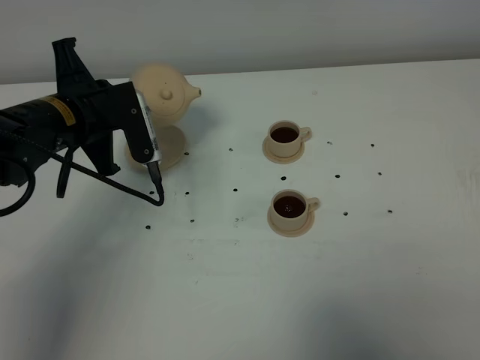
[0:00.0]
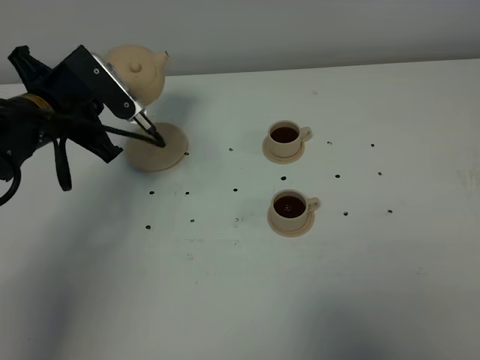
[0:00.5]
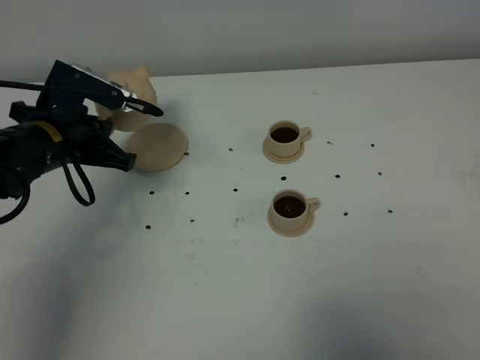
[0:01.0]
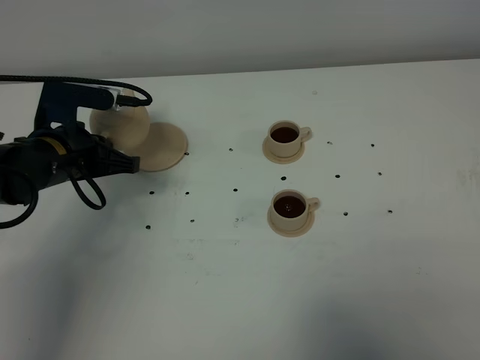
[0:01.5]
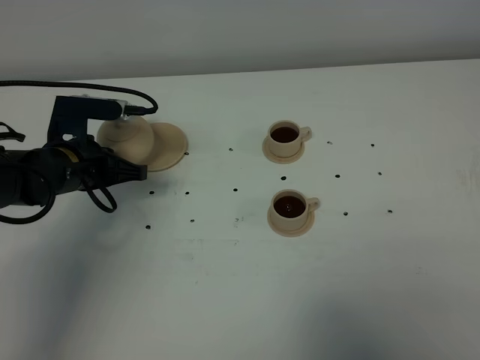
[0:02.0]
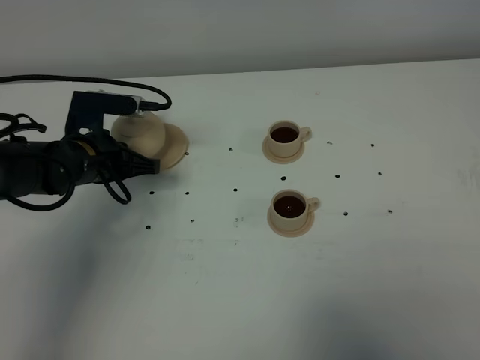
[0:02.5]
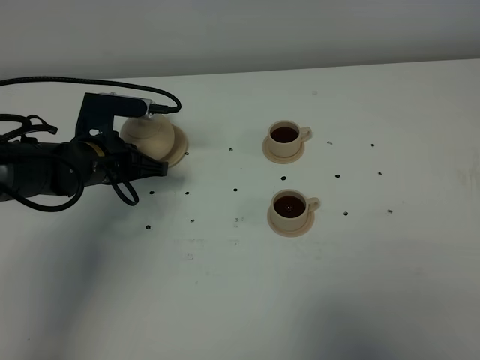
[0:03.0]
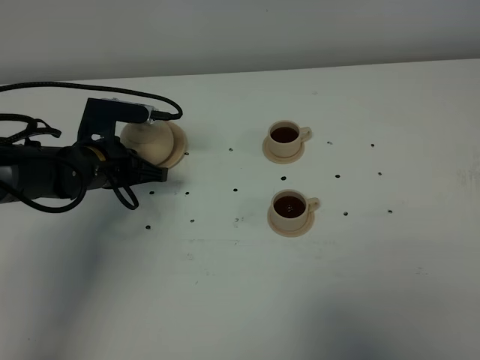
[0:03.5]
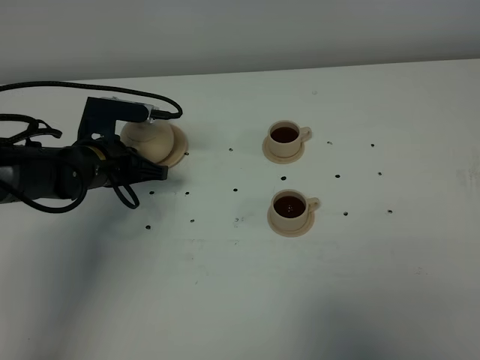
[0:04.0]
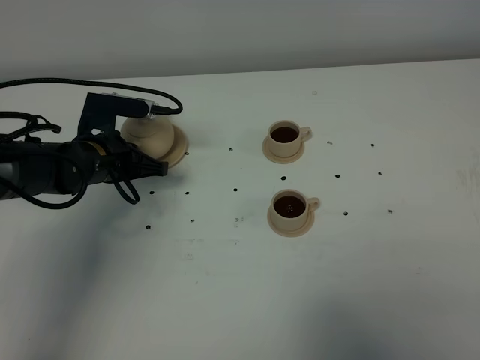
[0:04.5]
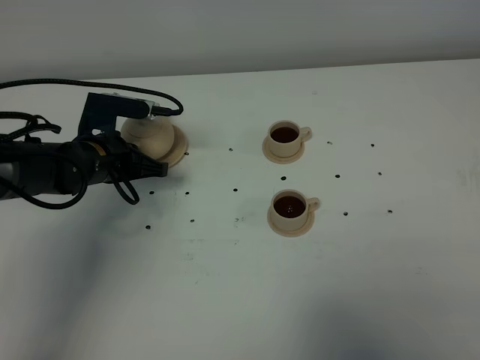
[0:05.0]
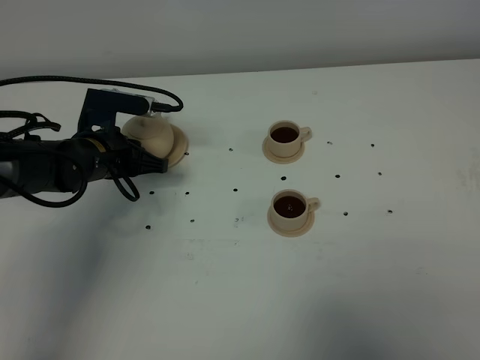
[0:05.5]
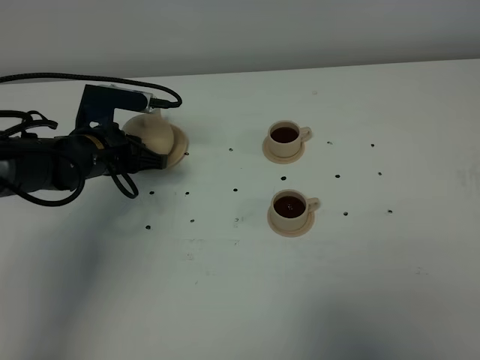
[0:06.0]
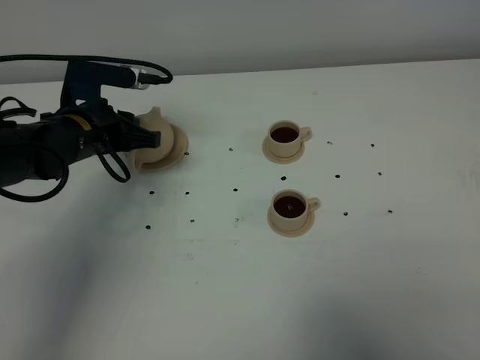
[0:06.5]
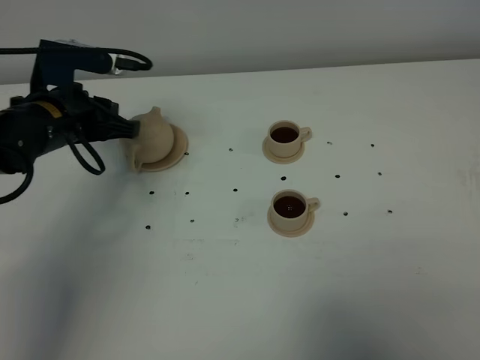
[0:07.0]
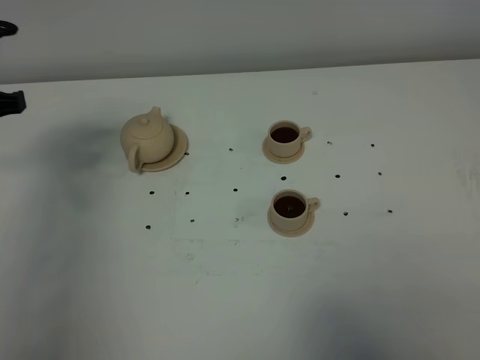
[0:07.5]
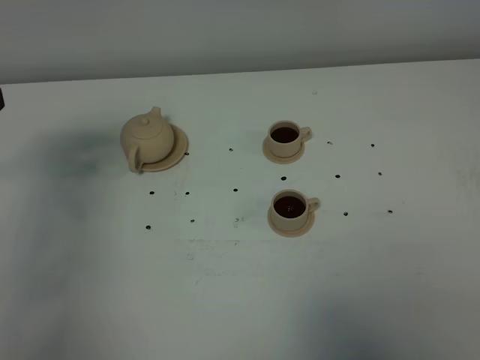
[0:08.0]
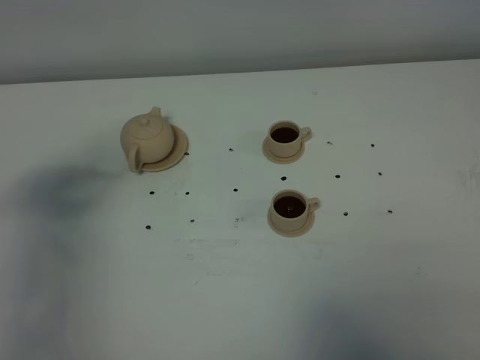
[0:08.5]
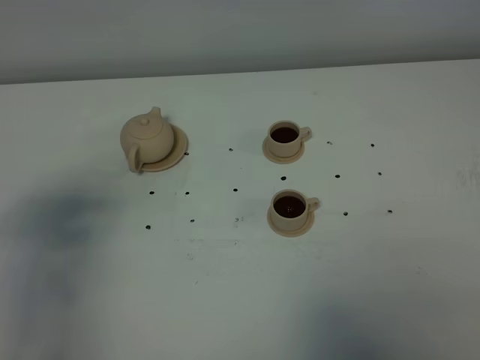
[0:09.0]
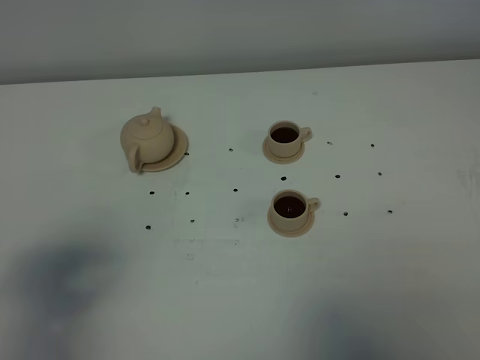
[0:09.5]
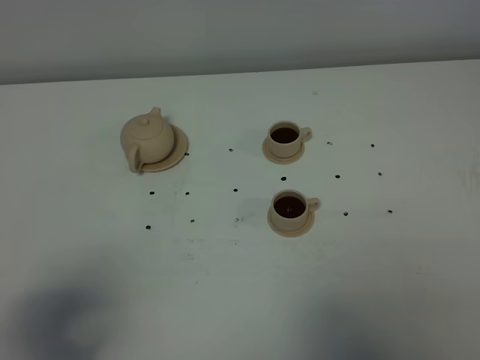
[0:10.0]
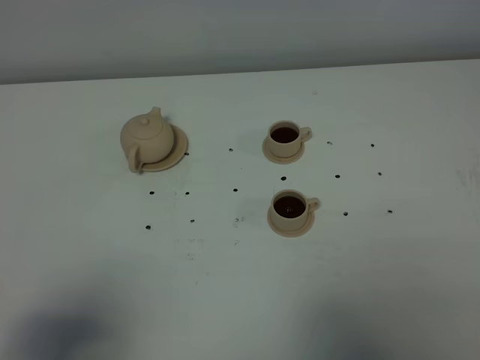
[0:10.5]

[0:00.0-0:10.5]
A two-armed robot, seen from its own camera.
Task of the whole recording: grasp the brown teapot and pour the tea into the two brown teacups one by one, put the brown teapot back in its original place.
Step, 0:00.0 to 0:06.5: Put down the teapot with left gripper.
0:00.0 to 0:02.0: The left gripper heads downward, covering roughly 10 cm.
0:02.0 to 0:04.0: The grippers move only a little.
0:04.0 to 0:06.5: The left gripper travels upward by some 5 cm, and opens.
0:06.5 to 0:08.5: The left gripper heads backward, upward and to the left, covering about 25 cm.
0:08.5 to 0:10.5: The left gripper moves backward, some 20 cm.

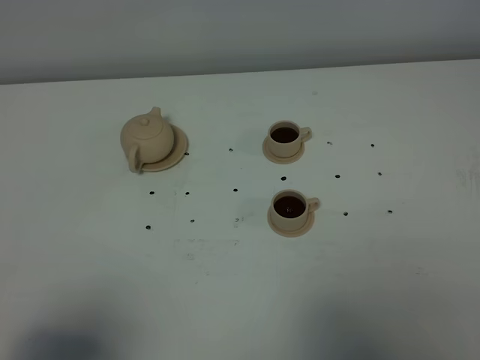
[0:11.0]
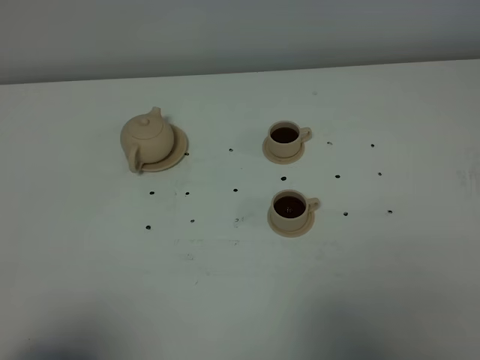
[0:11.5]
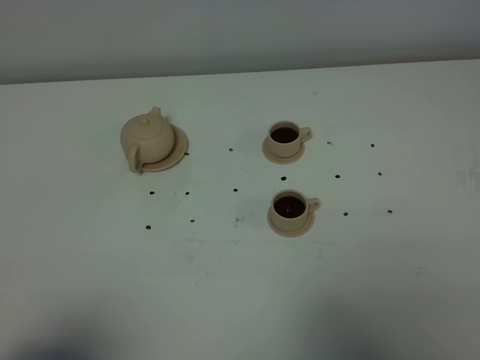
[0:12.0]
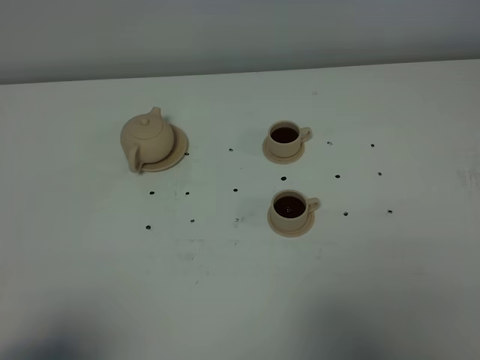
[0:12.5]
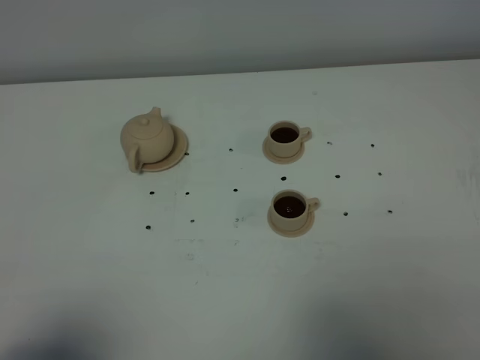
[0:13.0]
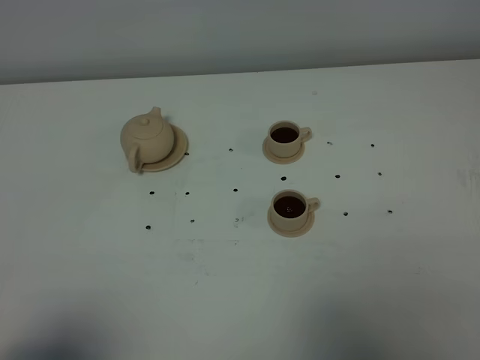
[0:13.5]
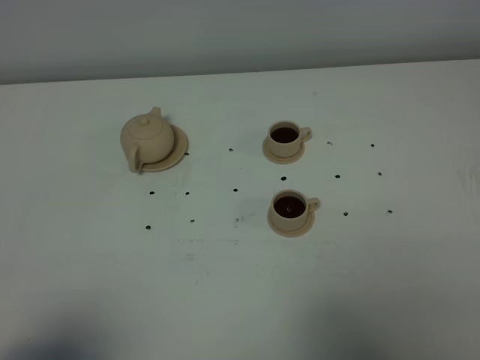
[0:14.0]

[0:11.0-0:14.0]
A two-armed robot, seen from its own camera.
Task of the whole recording: grasp the brown teapot and pour the tea into the two brown teacups one by one, put the brown teapot back in its original place.
0:12.5 to 0:14.0: Neither gripper changes place.
